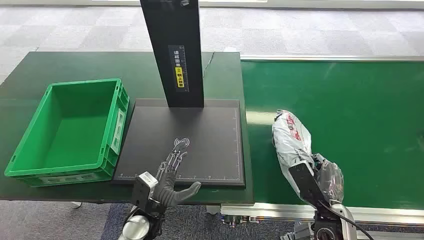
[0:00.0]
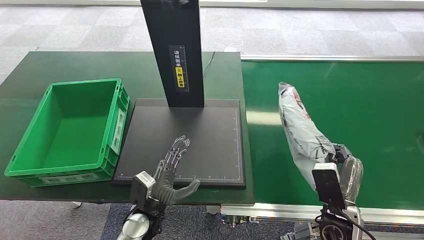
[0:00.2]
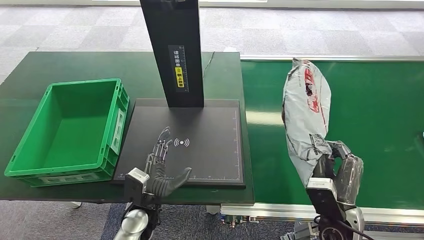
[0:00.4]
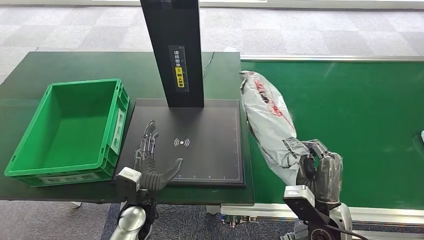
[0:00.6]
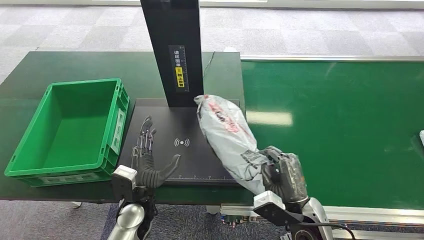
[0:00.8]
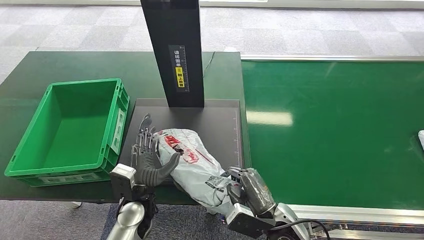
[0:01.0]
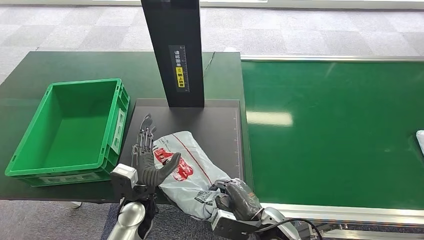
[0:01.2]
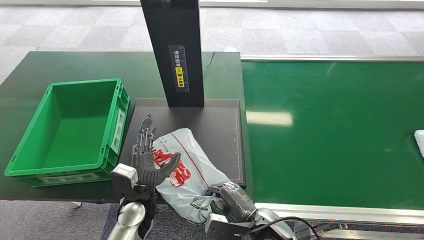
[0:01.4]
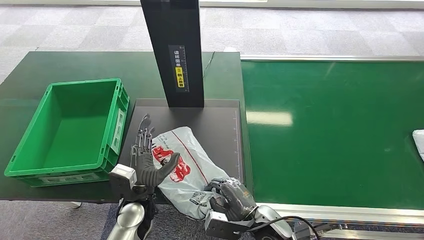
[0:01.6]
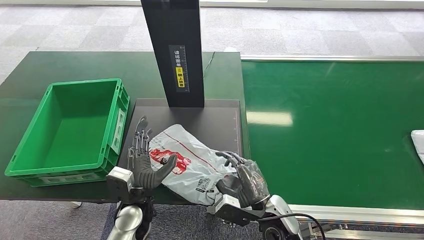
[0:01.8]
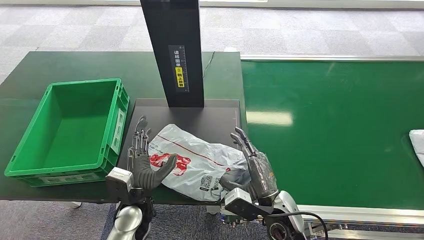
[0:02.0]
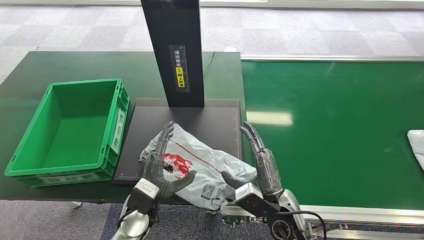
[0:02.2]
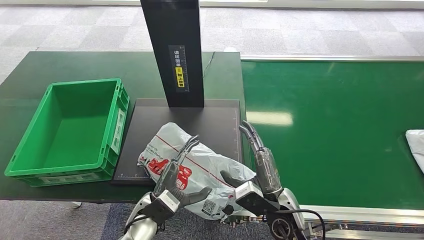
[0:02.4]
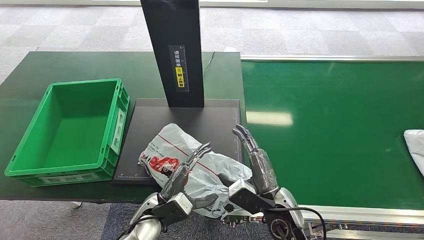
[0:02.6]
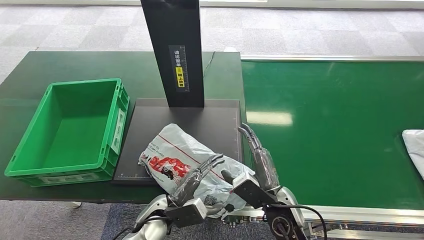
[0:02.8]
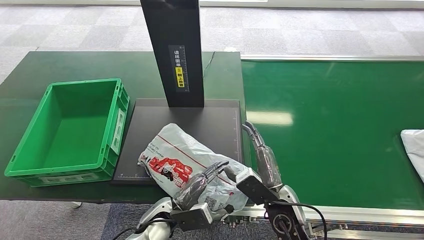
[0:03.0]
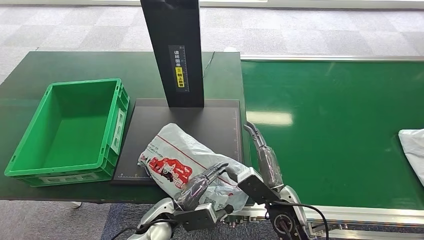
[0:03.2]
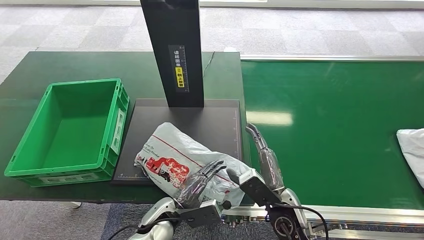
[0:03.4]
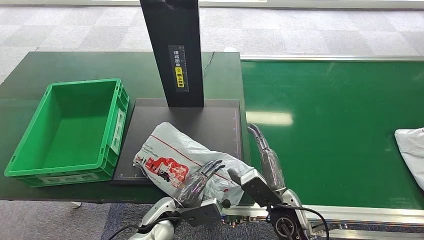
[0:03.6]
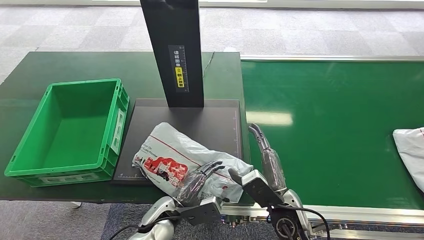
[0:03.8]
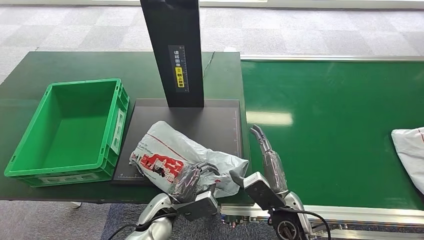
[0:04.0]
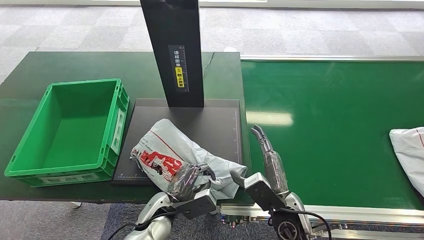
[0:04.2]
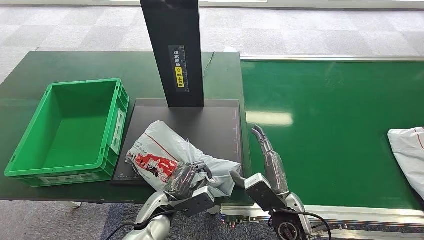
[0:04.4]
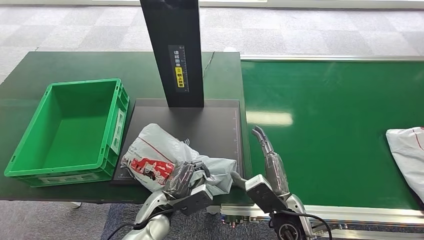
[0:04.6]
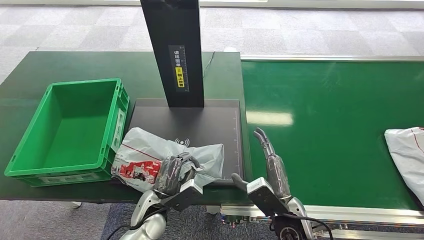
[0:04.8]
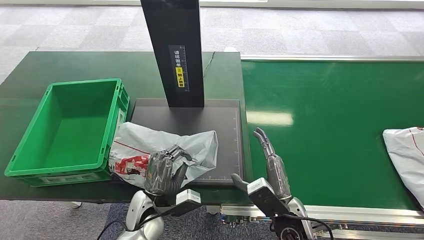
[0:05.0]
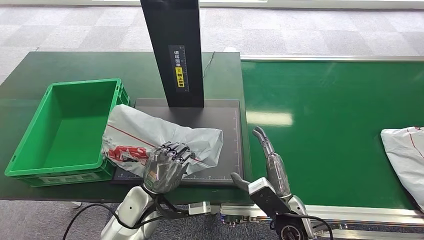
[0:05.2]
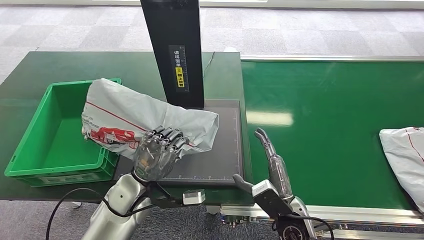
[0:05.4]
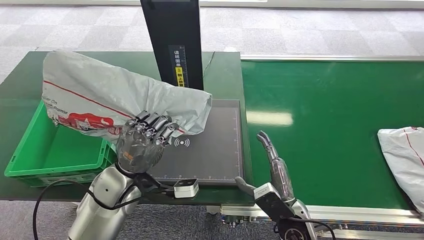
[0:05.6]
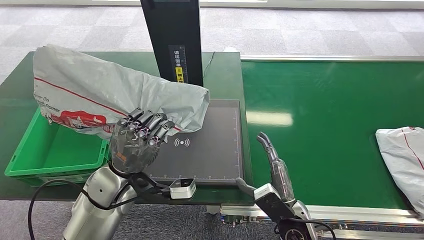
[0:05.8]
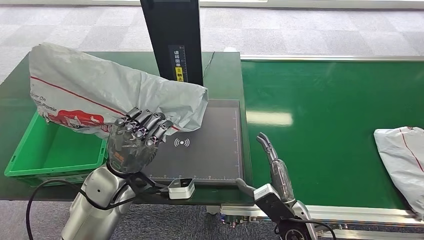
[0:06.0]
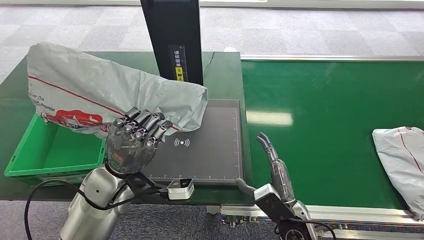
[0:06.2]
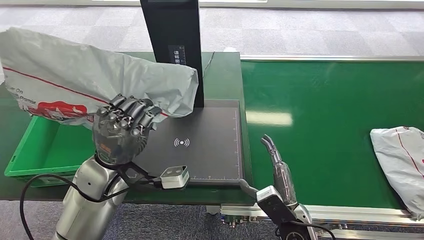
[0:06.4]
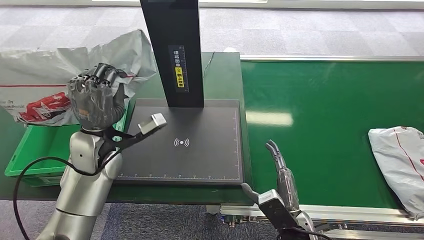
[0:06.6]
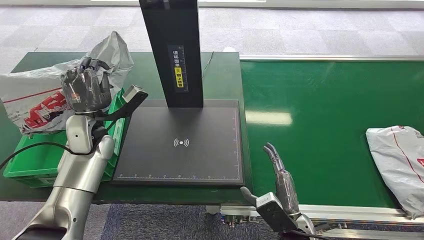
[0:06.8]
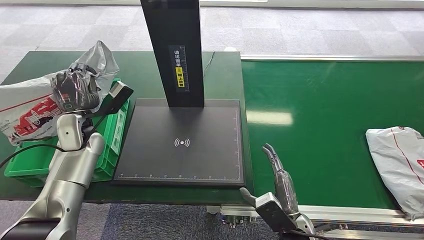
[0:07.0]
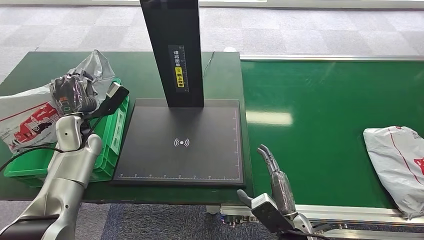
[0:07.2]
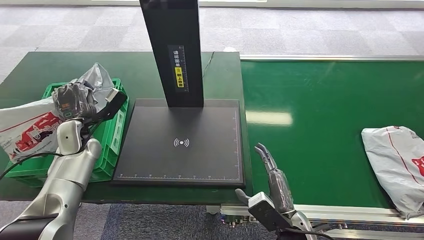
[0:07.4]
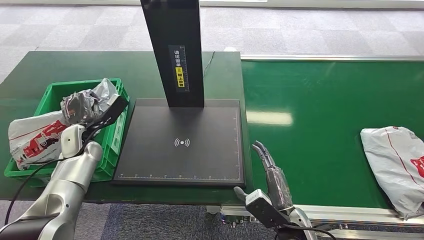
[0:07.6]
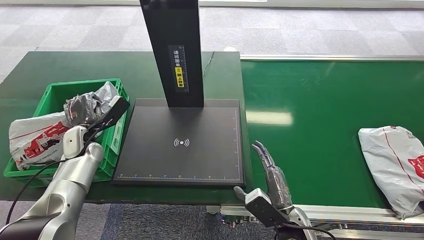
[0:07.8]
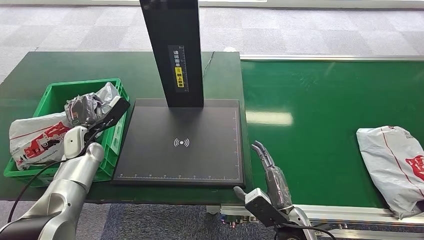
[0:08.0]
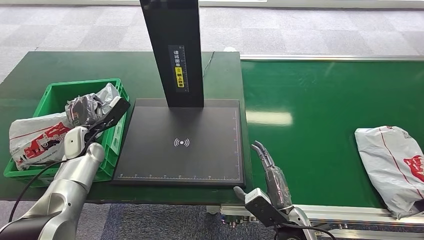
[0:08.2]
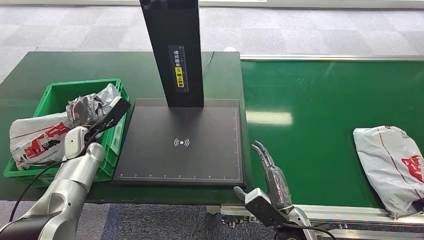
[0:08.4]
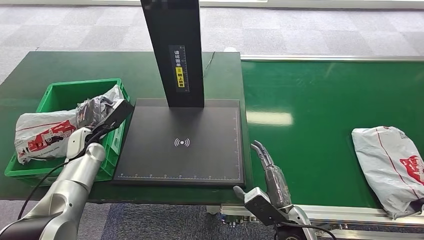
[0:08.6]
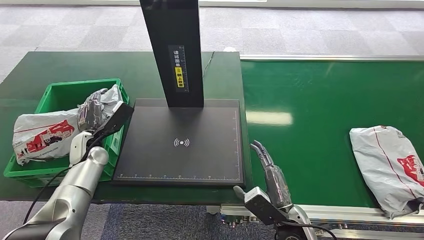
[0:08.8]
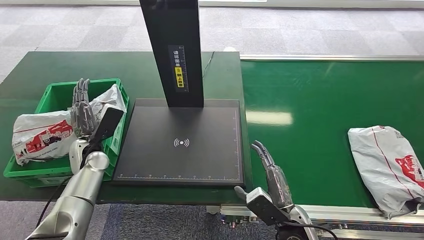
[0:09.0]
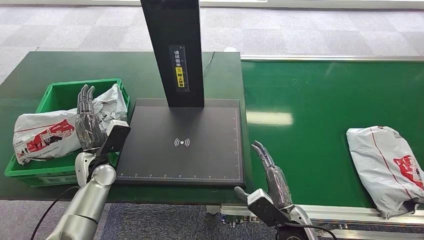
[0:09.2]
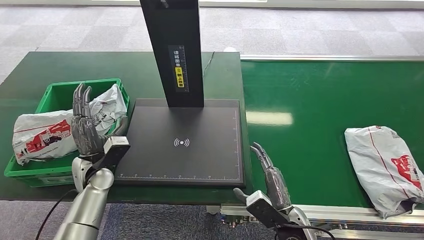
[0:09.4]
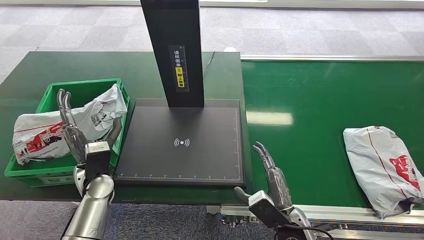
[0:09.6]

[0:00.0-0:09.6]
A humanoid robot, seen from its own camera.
Task of the whole recording: Weigh the package on the weighing device and place it in the left basket.
Step, 0:05.4 to 0:05.6: Pick up the package from the inbound machine.
Step, 0:09.4 to 0:09.6: Place the package into the parcel locker.
0:01.6 to 0:03.2: The left hand changes place by some 5 cm. The right hand ends up about 5 cm from where it was.
0:08.0 to 0:09.6: The left hand heads backward and to the right, covering some 10 cm.

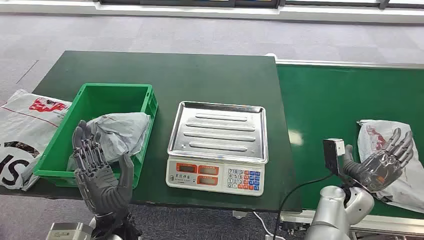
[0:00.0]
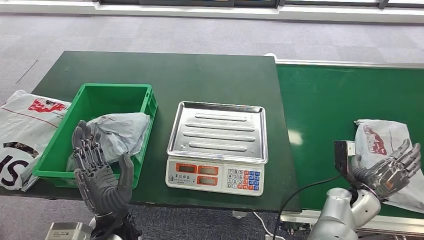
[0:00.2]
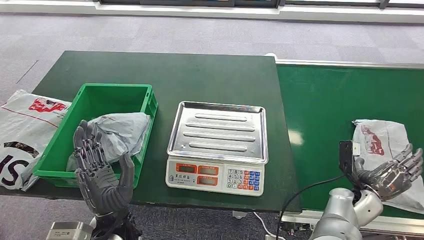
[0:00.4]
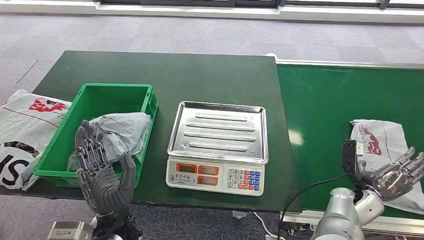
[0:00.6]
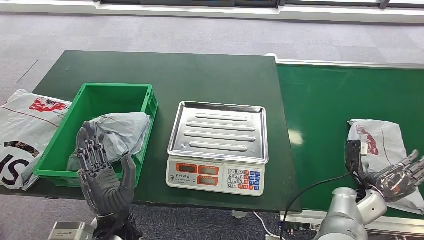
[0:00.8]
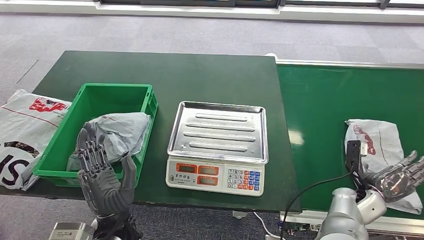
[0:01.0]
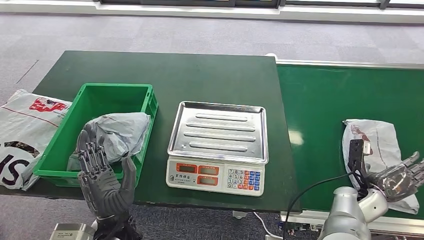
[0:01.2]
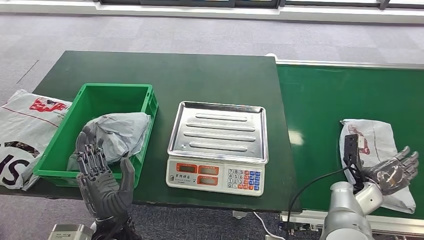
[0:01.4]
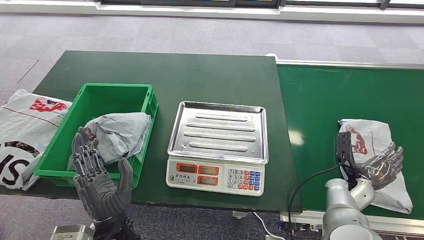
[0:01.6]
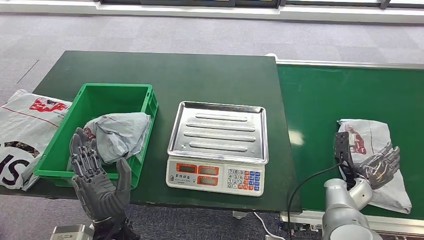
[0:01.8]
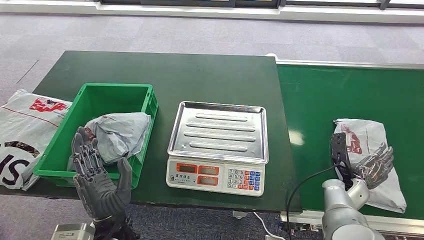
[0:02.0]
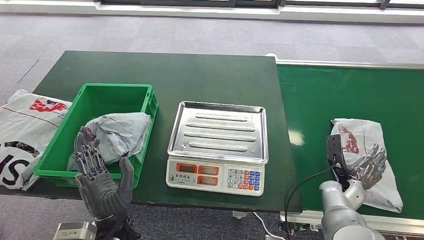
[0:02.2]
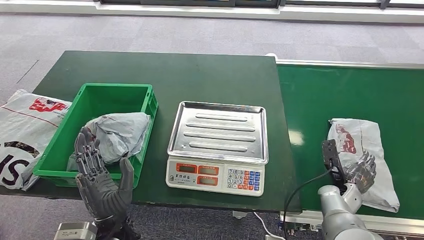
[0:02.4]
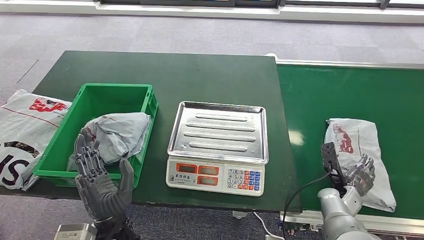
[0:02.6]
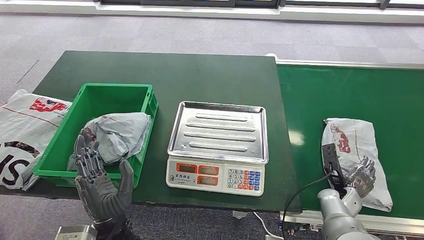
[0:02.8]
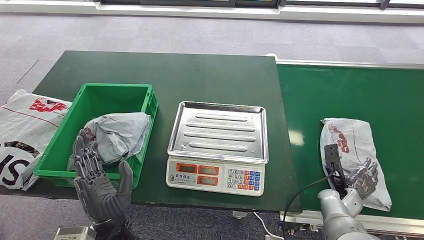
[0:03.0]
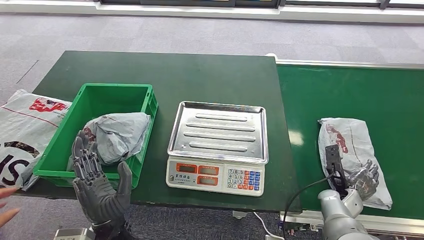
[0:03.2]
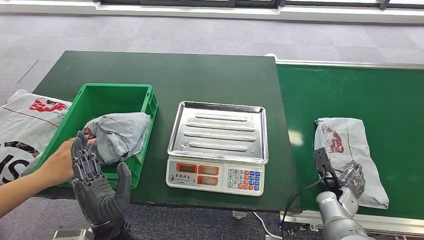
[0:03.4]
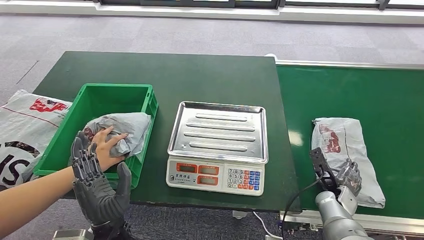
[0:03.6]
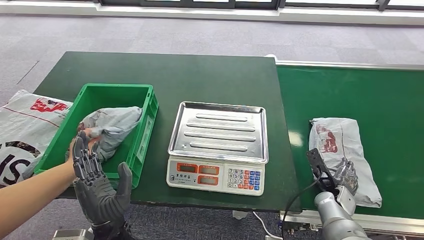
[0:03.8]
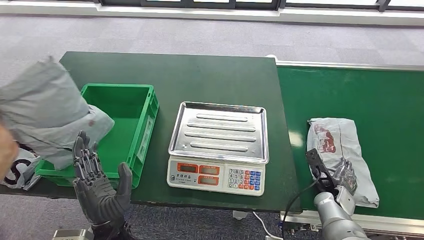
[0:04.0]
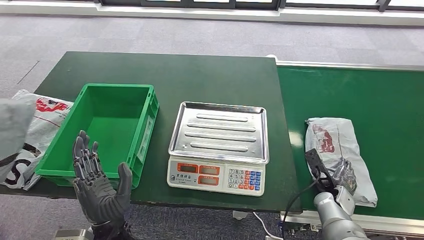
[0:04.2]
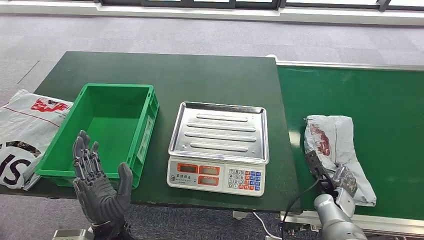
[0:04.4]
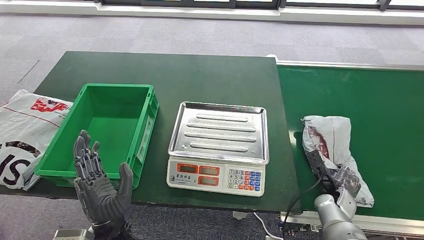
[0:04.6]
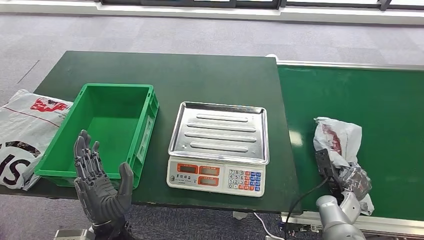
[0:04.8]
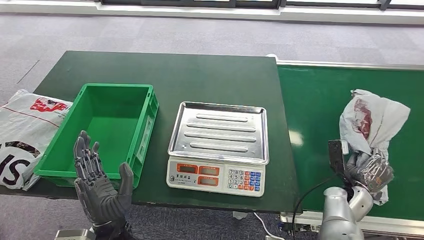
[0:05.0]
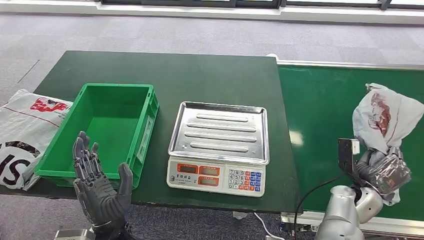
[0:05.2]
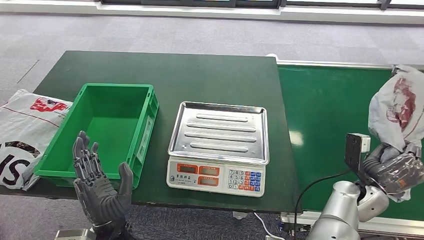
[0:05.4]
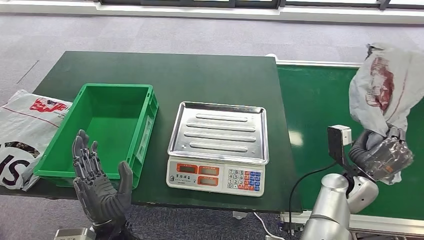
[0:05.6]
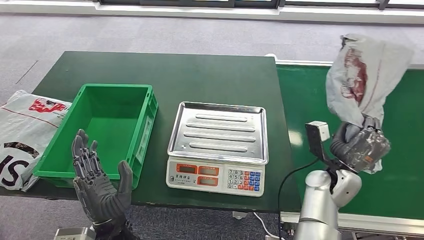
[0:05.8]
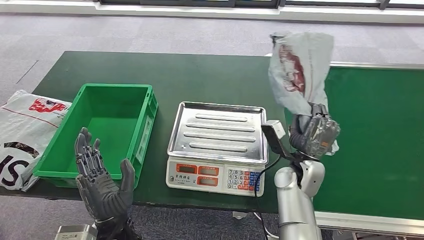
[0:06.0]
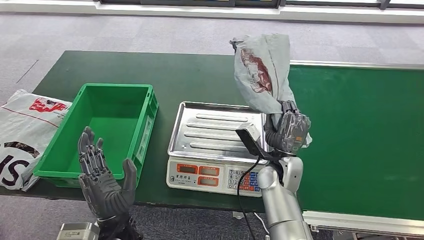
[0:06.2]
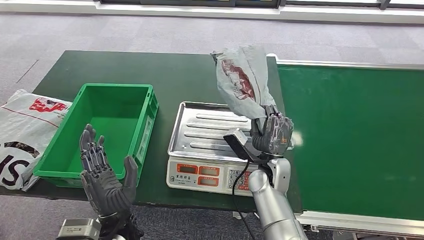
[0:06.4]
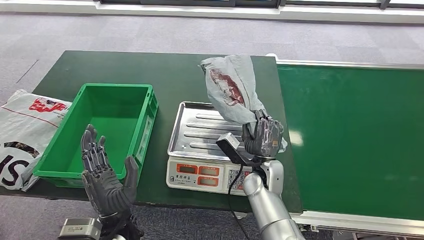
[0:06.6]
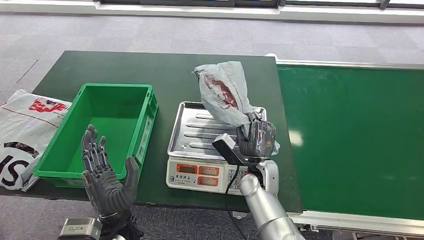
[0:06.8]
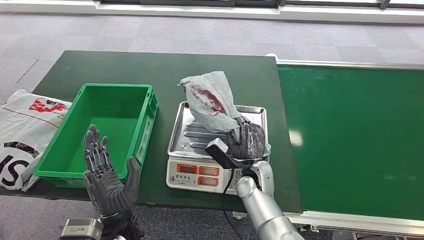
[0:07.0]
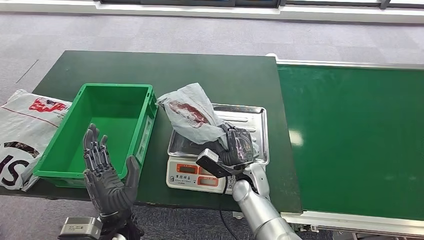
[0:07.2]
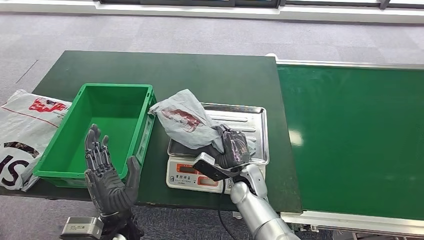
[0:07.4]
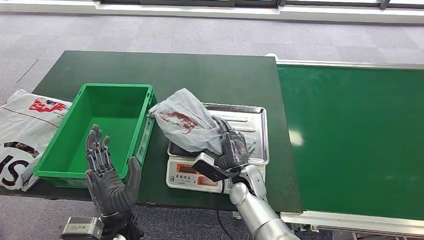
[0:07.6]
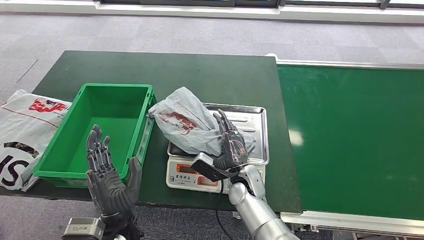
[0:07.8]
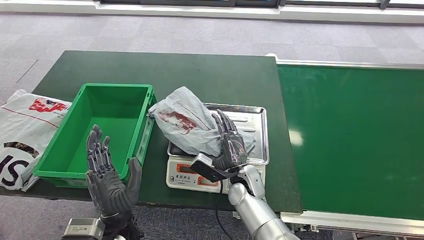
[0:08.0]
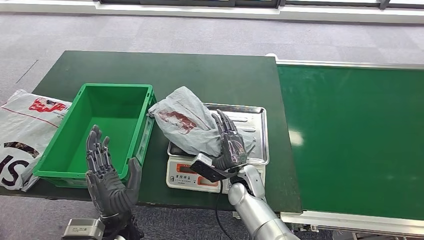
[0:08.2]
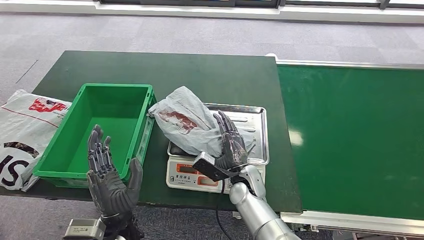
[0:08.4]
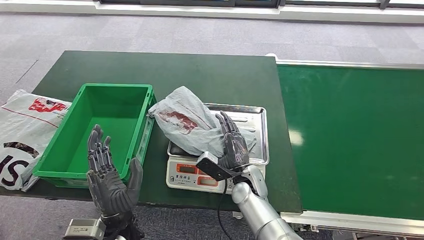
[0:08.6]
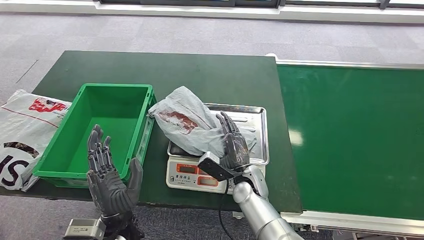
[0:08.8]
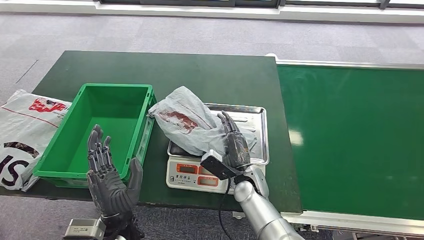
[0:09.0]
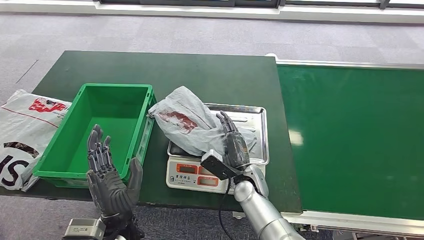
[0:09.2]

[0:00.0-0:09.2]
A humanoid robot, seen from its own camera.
Task of the whole recording: Weigh the package on the weighing device and place it in the left basket.
Step, 0:00.0 to 0:05.4: Pick up the package from the conveyor belt.
Step, 0:05.8 to 0:08.0: Place the package onto the inbound machine.
0:01.6 to 0:03.0: The hands make only small movements.
0:06.2 to 0:07.6: The right hand moves to the left and downward, approximately 10 cm.
0:07.6 to 0:09.2: The hands move only a little.
